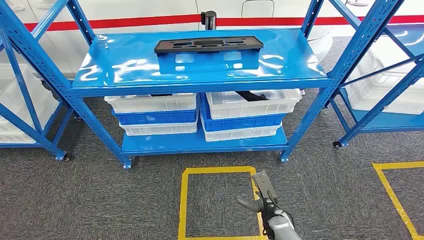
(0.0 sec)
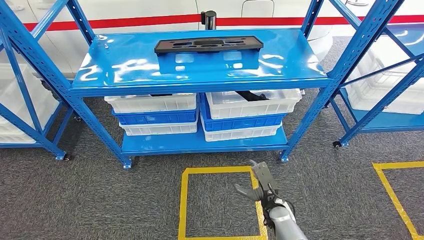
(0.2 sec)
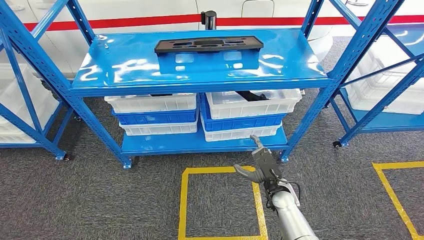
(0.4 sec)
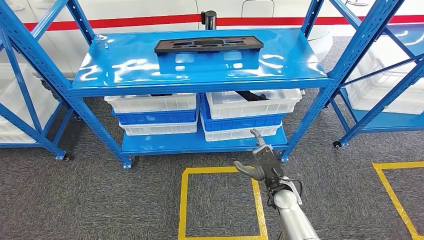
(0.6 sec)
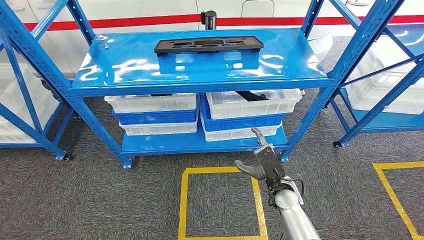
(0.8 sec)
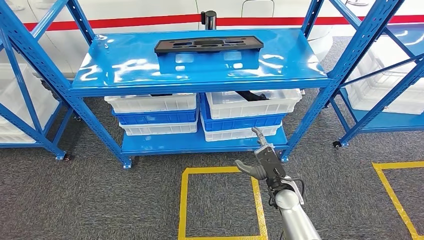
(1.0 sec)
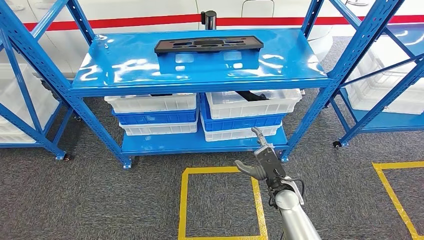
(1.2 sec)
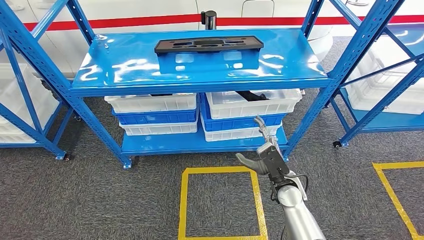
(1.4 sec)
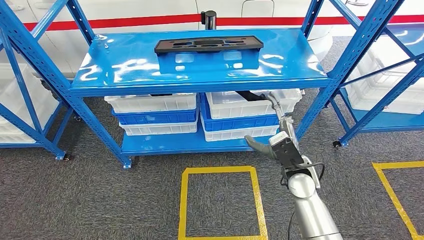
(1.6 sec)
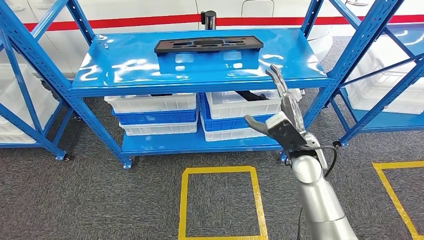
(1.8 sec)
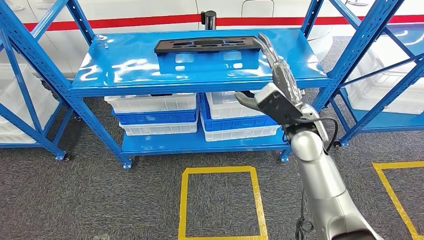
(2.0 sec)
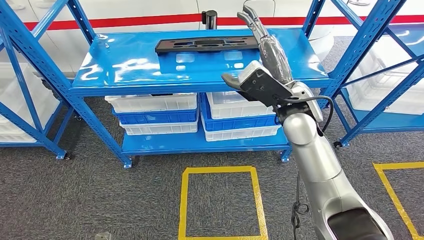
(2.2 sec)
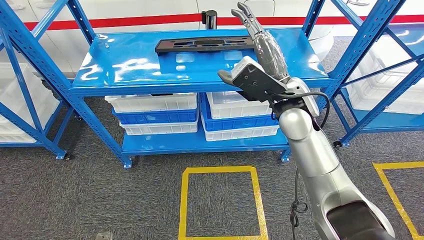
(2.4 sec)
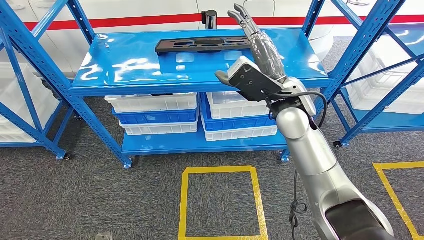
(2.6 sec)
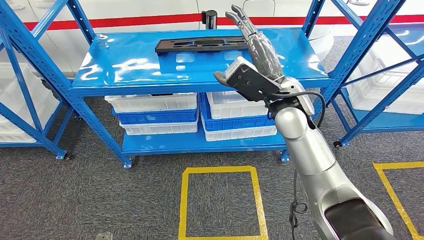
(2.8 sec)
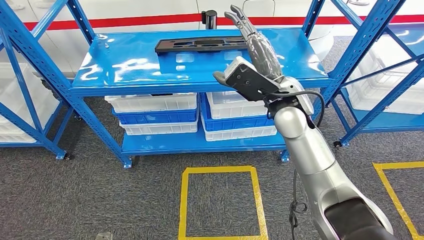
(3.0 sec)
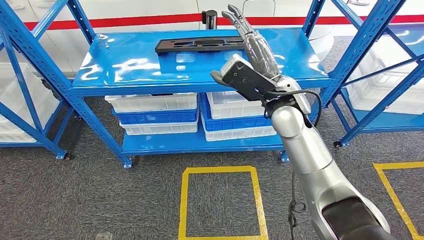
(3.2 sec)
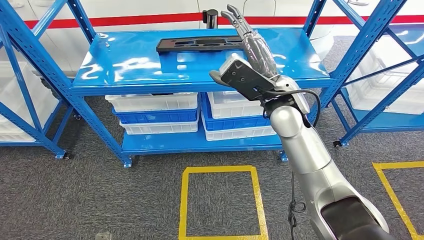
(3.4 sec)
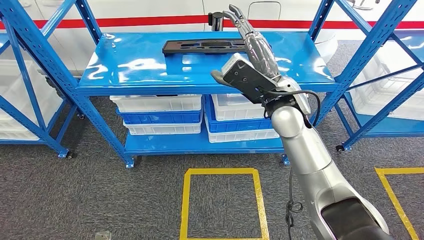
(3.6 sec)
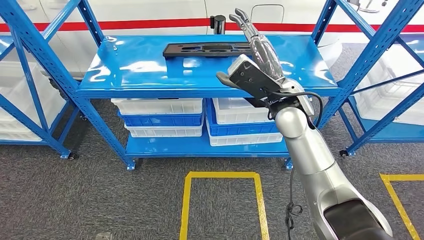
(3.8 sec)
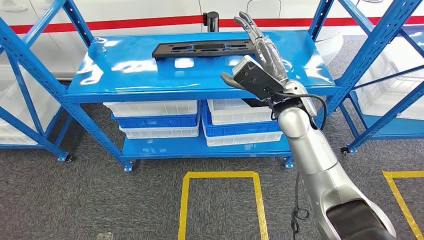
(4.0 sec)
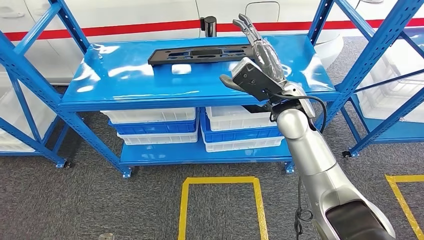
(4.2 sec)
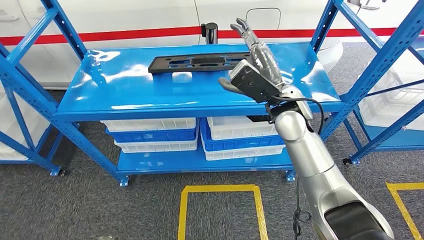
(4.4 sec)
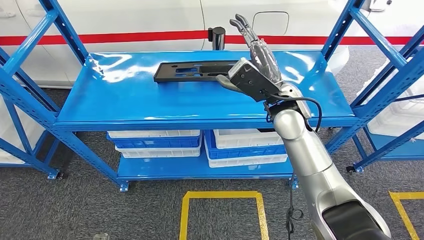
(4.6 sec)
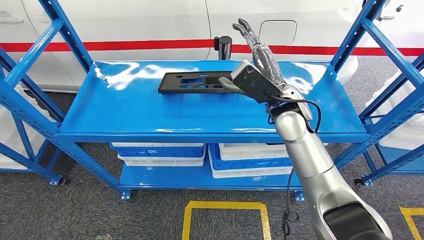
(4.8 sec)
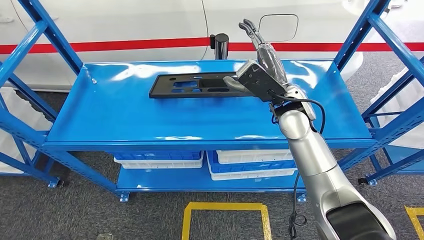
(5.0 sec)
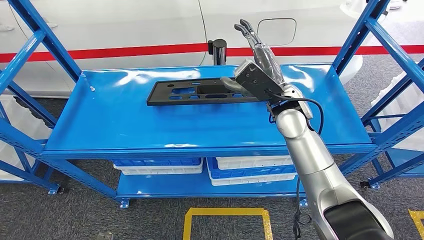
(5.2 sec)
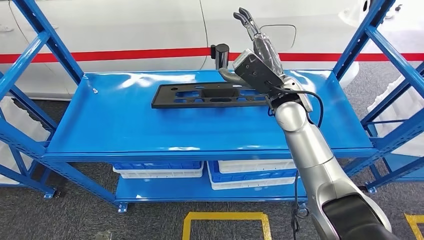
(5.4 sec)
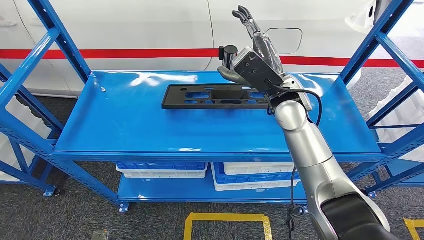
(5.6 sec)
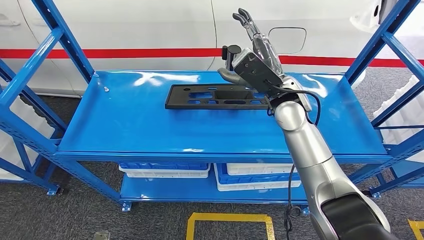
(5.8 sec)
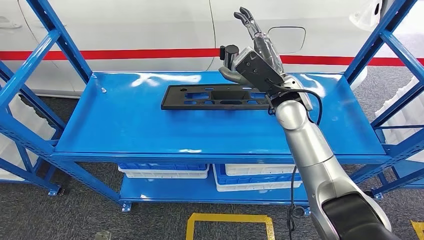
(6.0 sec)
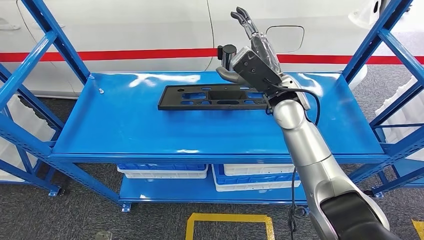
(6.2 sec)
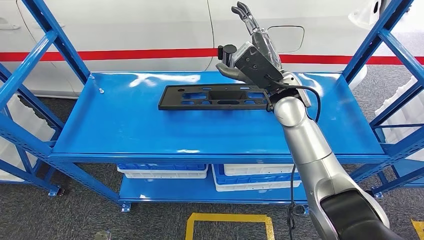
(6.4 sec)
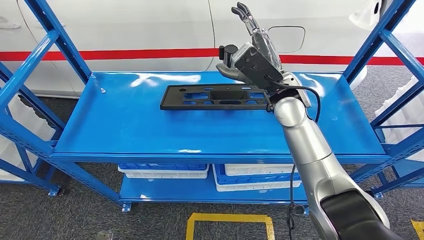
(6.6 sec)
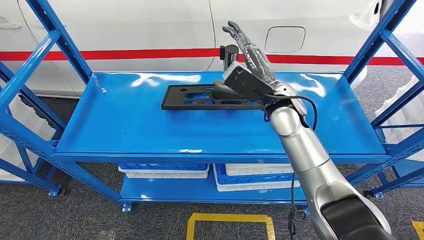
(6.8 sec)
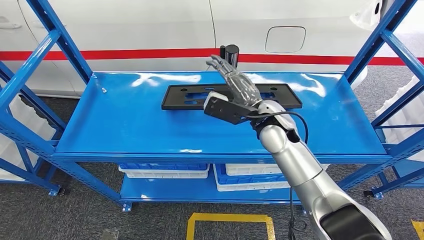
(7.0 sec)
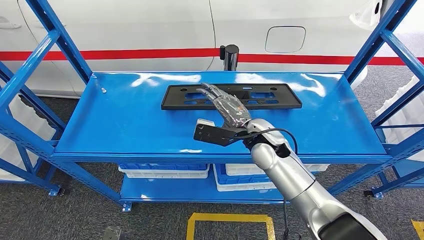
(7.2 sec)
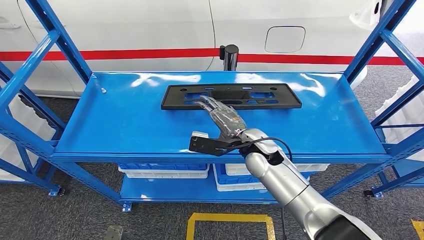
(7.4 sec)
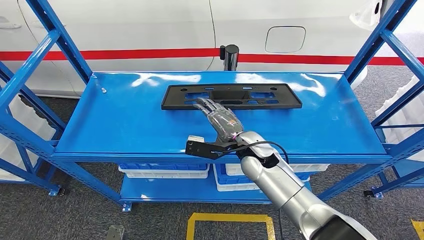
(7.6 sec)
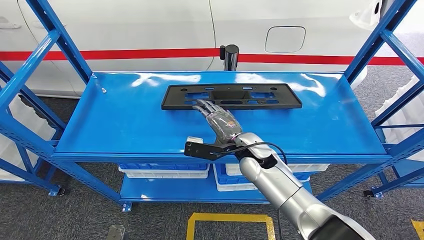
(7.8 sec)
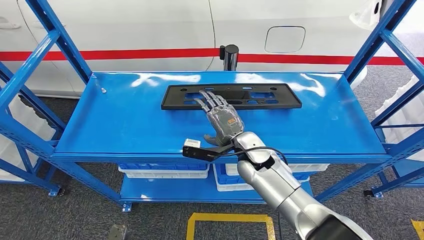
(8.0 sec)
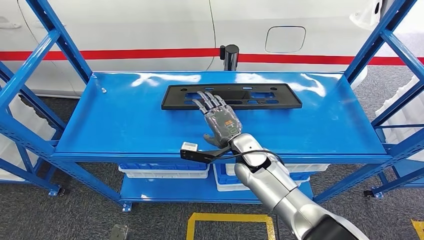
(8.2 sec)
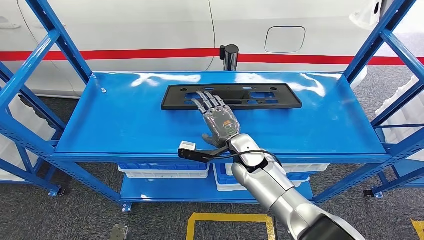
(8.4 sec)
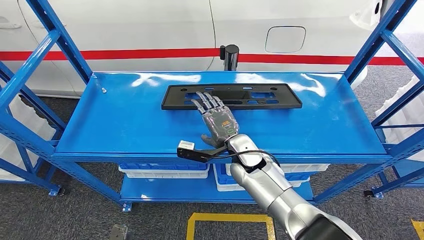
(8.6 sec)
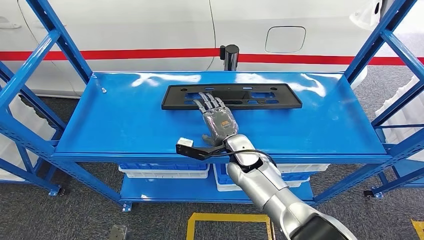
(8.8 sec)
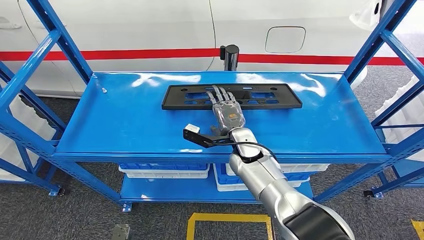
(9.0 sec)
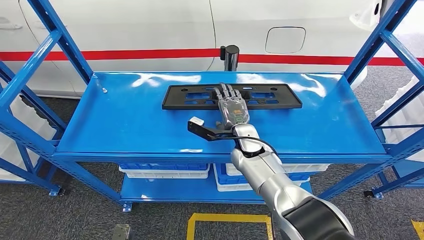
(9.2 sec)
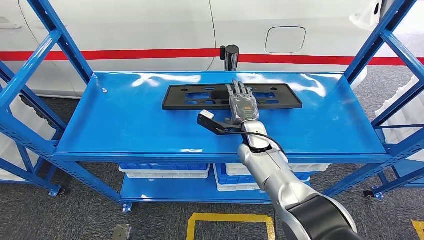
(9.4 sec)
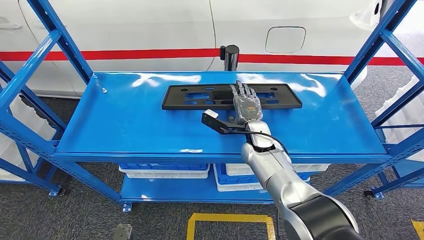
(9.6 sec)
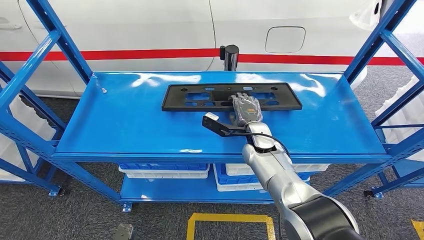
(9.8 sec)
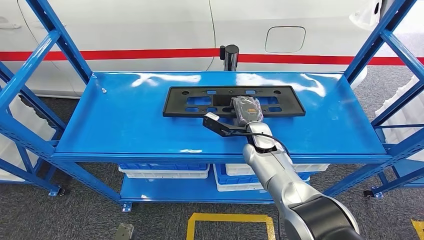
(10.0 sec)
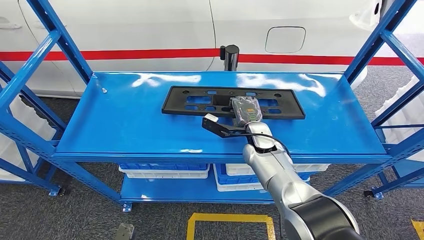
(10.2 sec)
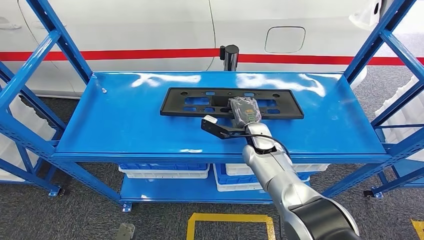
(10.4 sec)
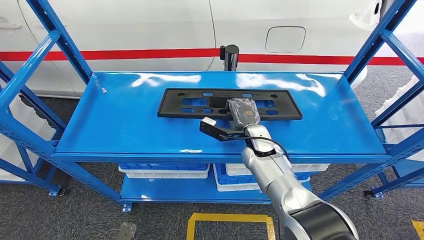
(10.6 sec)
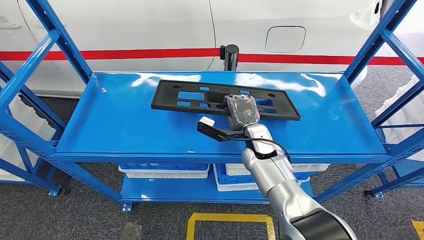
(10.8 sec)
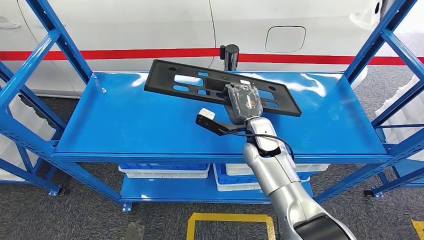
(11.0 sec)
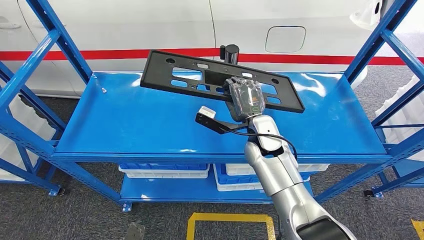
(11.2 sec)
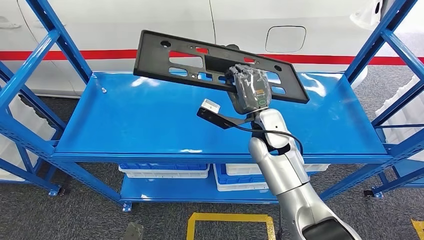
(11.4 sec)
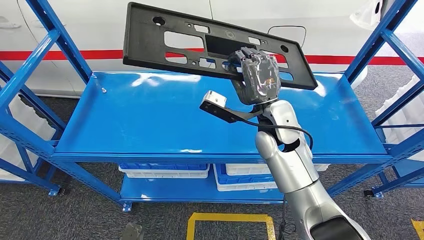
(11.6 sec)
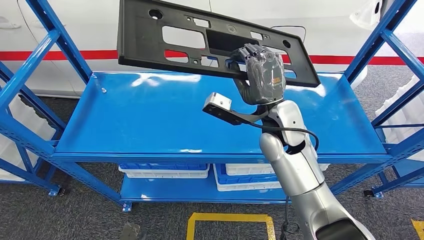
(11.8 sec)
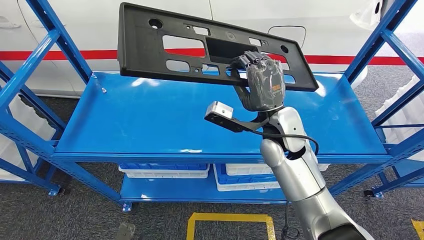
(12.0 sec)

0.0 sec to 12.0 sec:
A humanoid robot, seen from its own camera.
1.6 sec to 3.0 sec: The right hand heads upward, covering approximately 20 cm.
6.0 sec to 7.6 sec: The right hand shifts approximately 15 cm downward and to the left.
9.0 sec to 10.4 sec: The right hand is displaced to the right by some 5 cm.

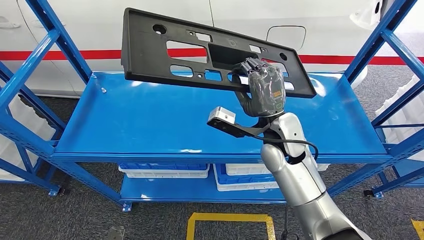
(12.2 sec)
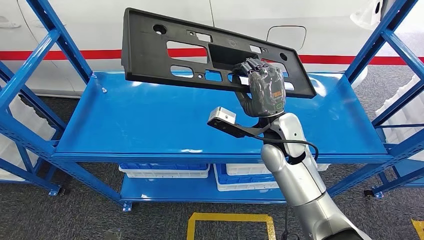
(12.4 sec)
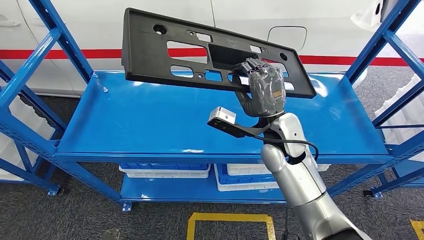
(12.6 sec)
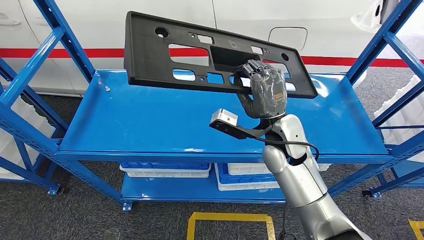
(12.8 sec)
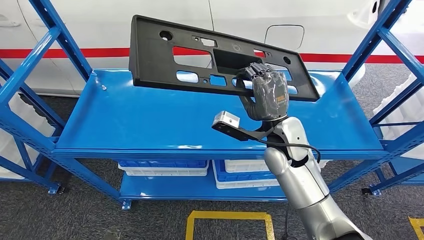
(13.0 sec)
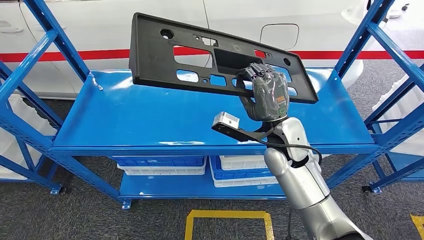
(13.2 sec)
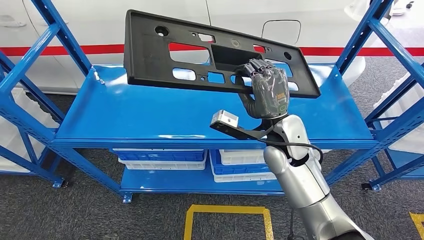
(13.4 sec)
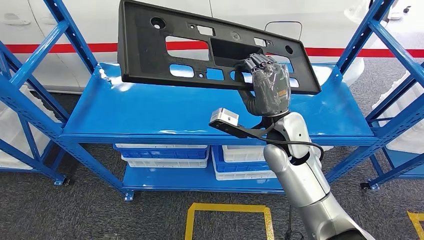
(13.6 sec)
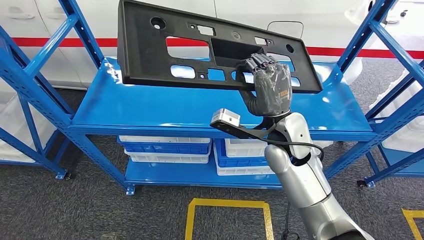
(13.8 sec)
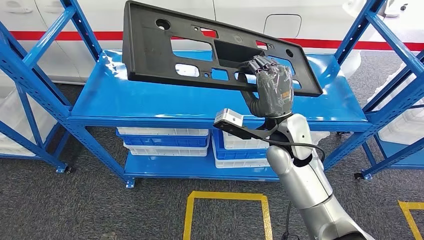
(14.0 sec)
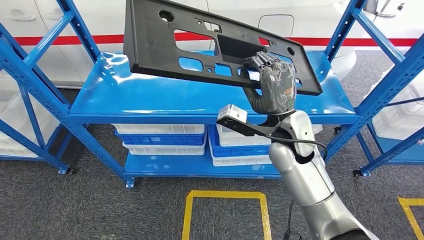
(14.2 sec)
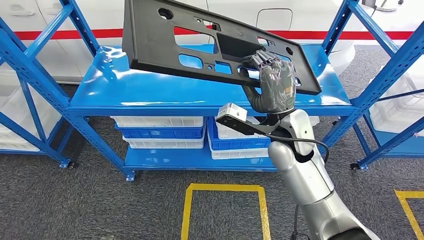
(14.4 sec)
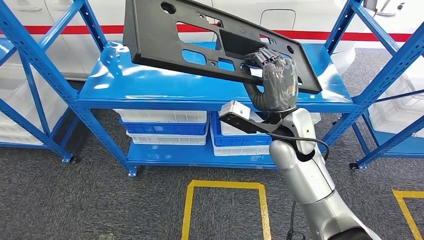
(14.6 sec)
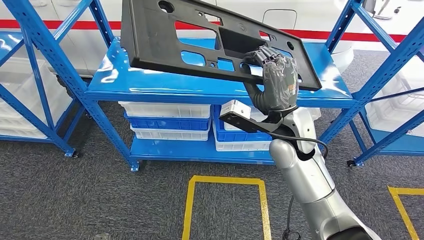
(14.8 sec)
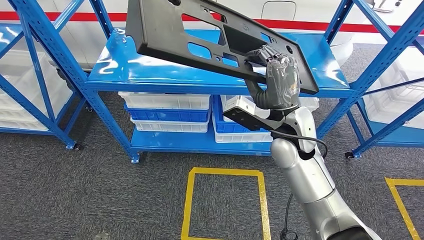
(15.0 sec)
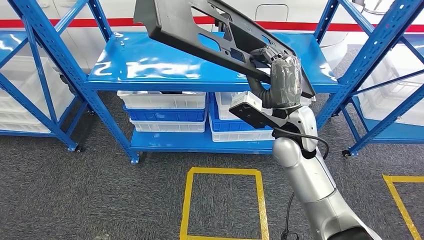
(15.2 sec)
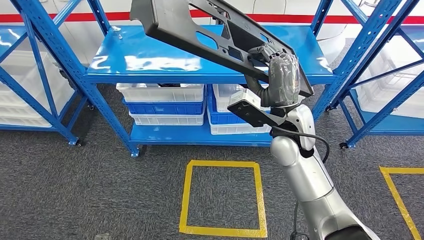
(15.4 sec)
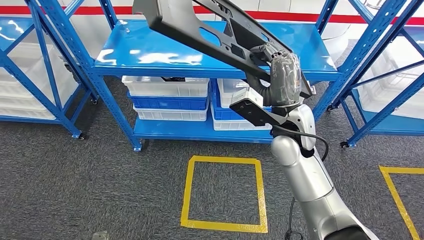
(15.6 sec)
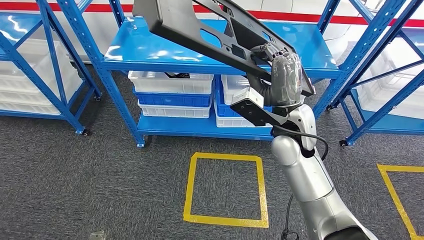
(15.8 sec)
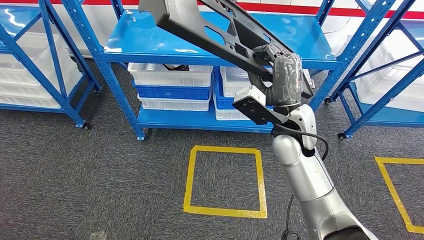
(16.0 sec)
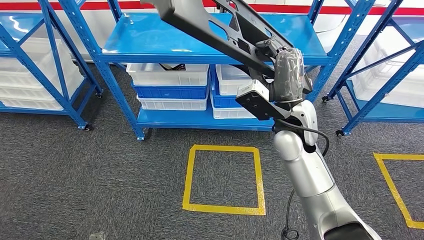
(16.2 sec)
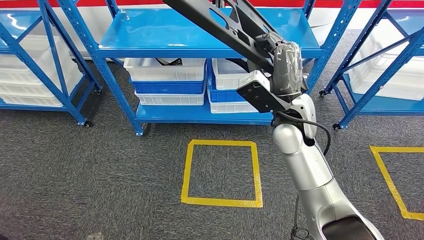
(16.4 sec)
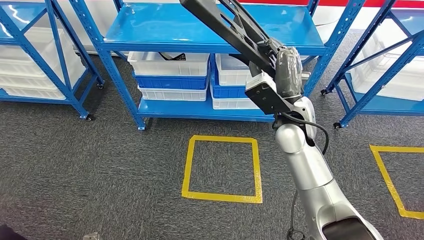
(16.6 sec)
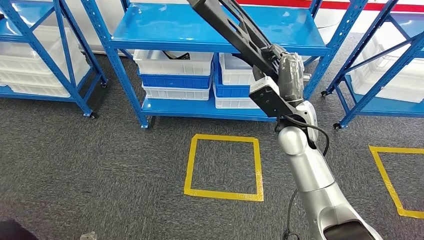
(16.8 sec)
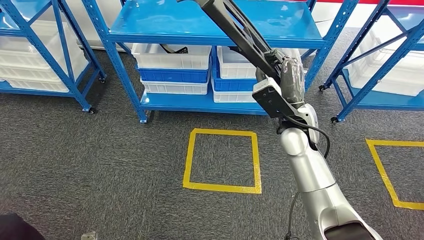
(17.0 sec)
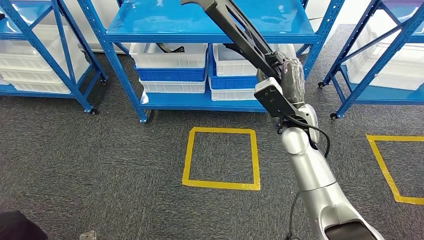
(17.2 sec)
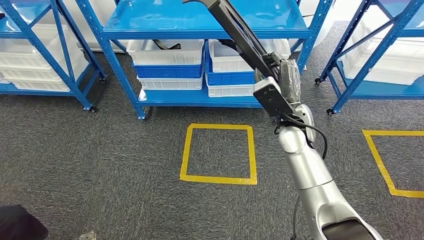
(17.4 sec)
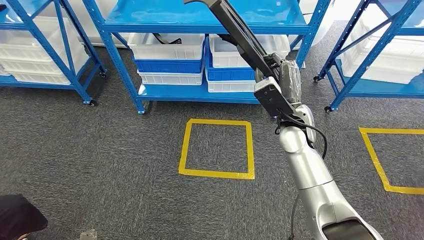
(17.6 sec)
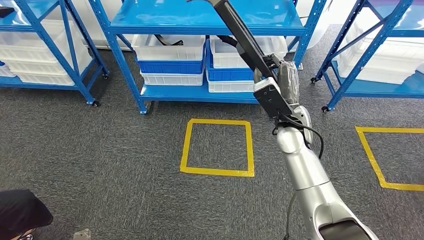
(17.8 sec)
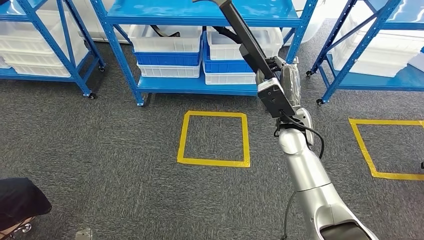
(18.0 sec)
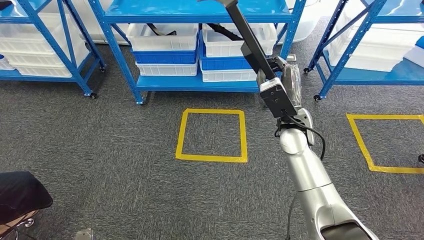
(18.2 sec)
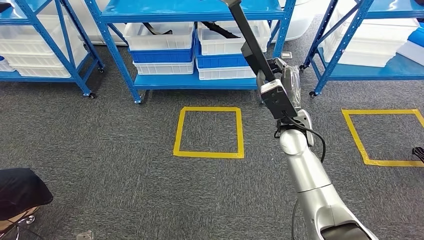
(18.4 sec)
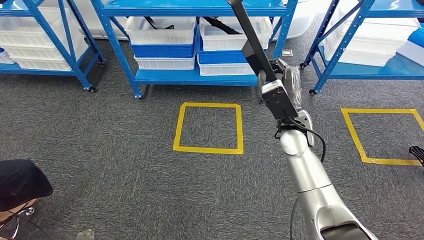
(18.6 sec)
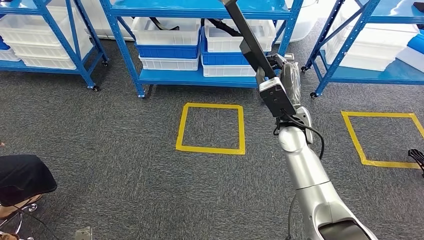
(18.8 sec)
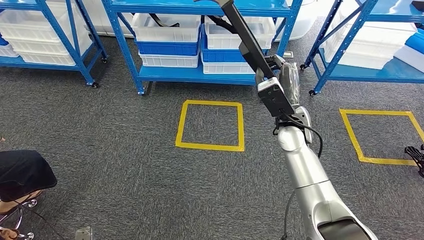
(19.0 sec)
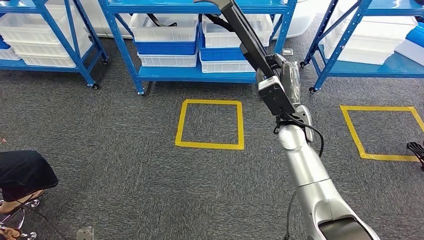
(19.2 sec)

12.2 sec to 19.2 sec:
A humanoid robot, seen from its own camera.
Step, 12.2 sec to 14.6 sec: Pick up the large material from the shelf.
